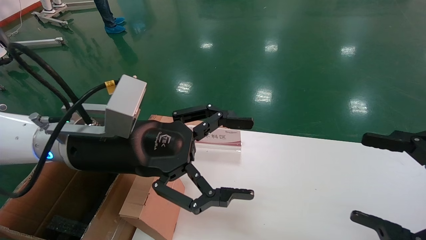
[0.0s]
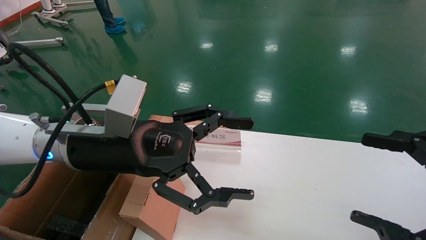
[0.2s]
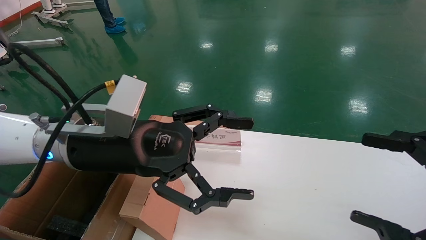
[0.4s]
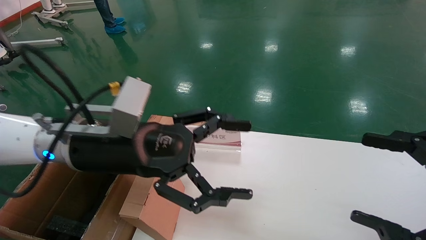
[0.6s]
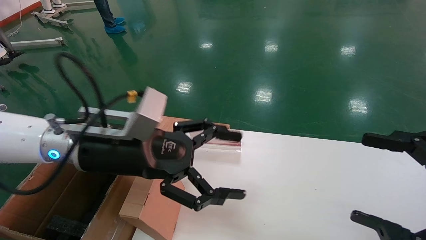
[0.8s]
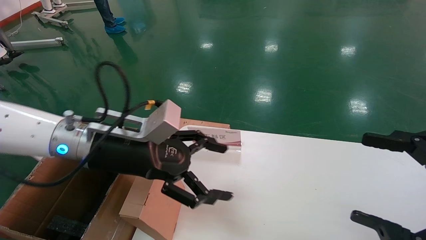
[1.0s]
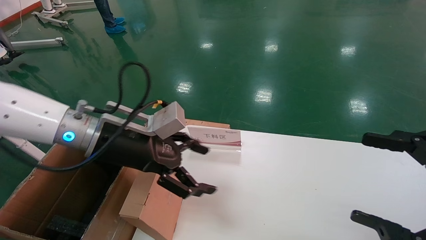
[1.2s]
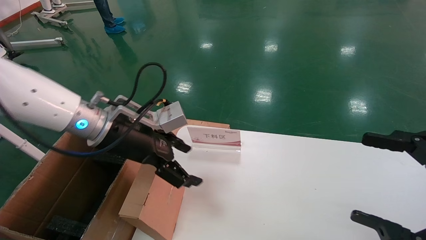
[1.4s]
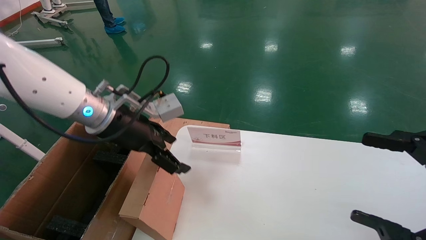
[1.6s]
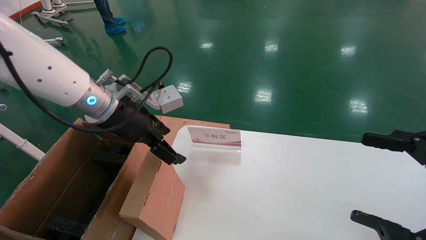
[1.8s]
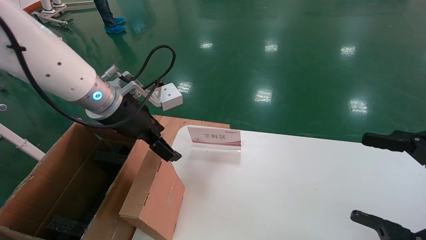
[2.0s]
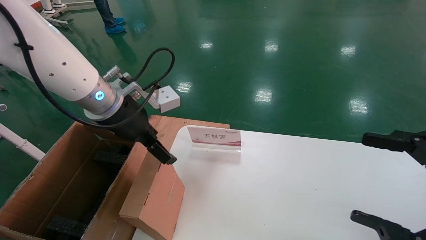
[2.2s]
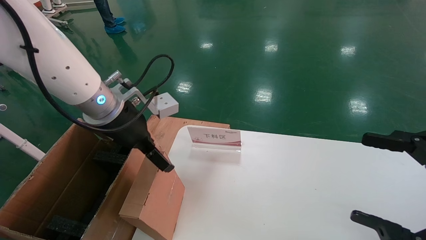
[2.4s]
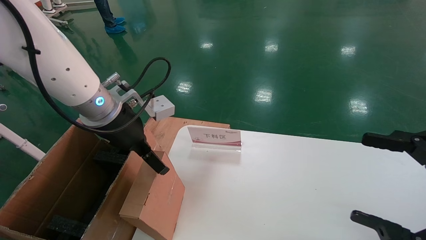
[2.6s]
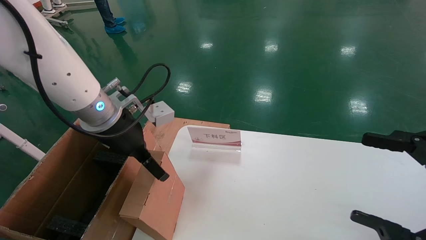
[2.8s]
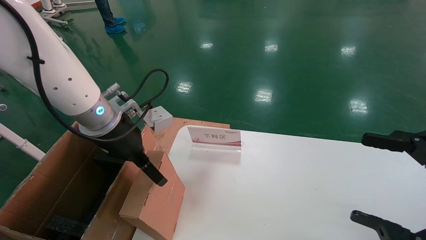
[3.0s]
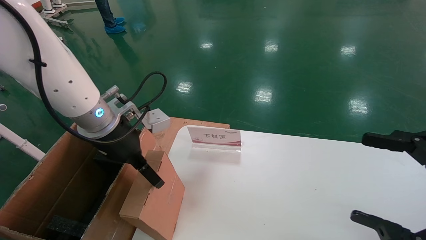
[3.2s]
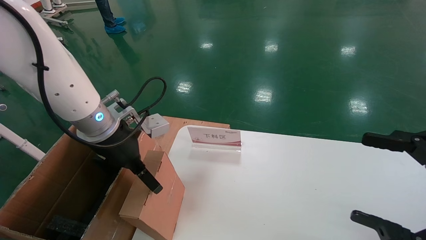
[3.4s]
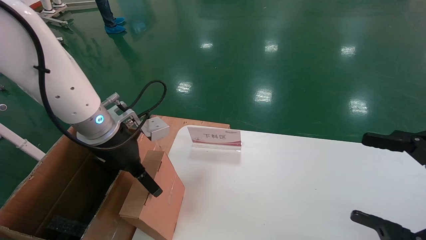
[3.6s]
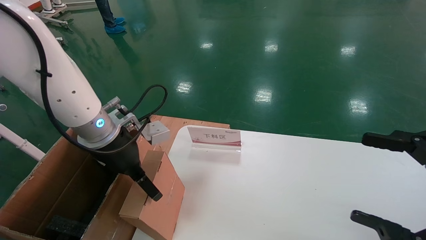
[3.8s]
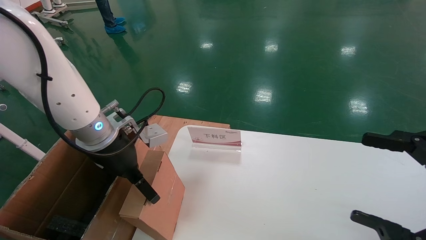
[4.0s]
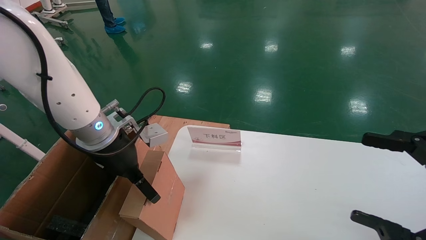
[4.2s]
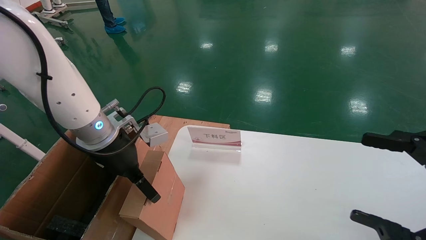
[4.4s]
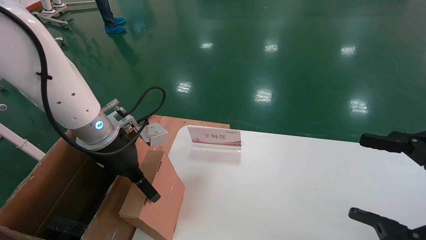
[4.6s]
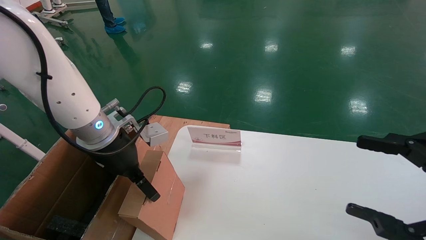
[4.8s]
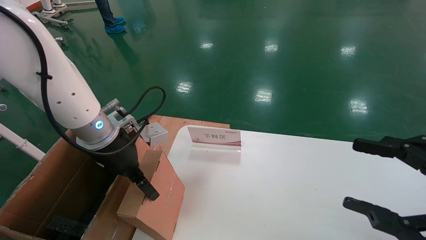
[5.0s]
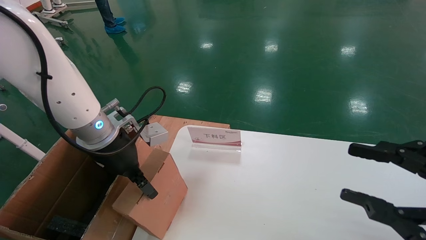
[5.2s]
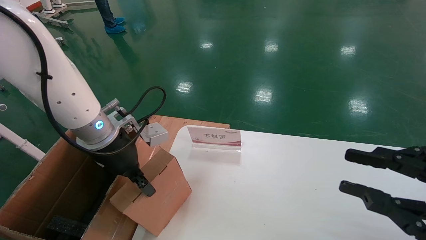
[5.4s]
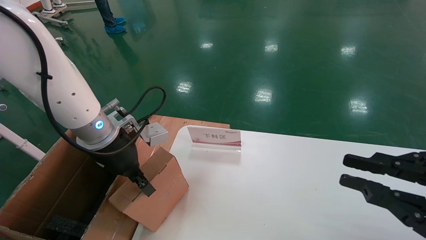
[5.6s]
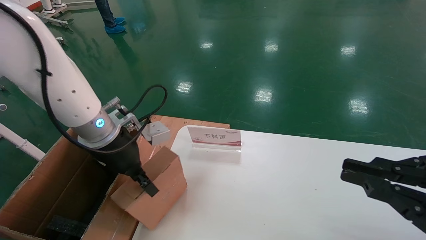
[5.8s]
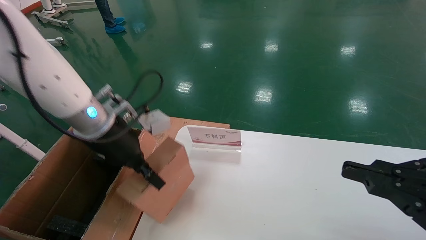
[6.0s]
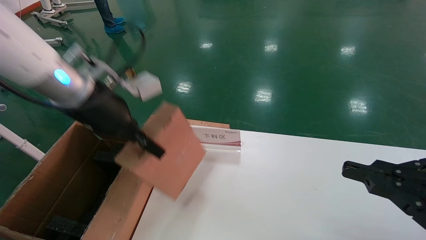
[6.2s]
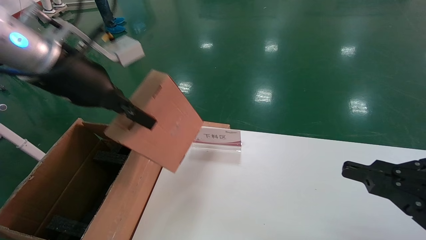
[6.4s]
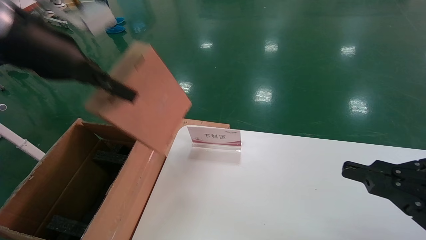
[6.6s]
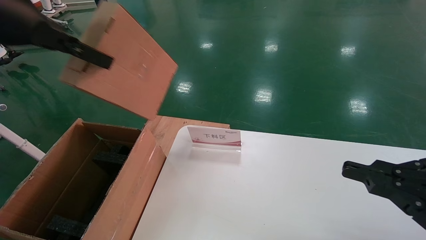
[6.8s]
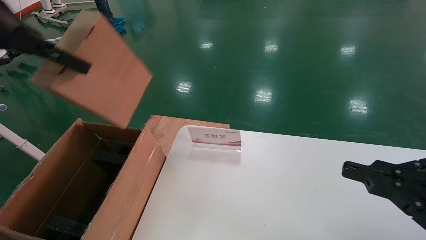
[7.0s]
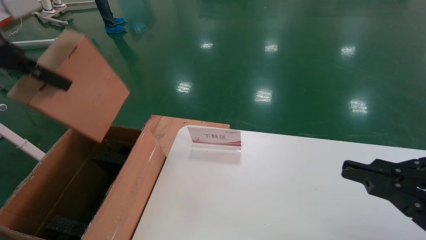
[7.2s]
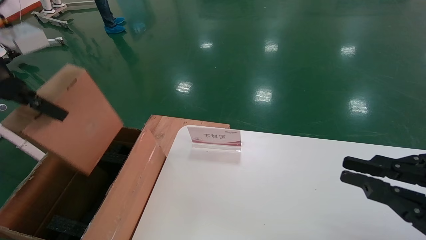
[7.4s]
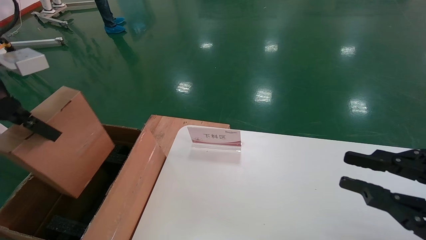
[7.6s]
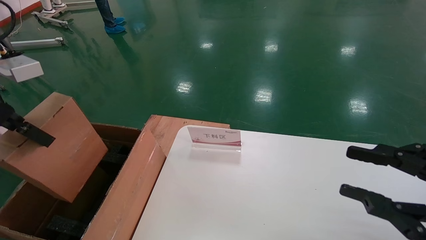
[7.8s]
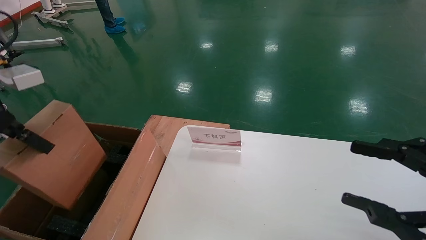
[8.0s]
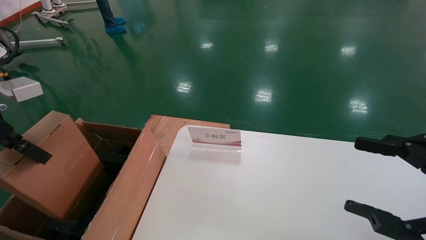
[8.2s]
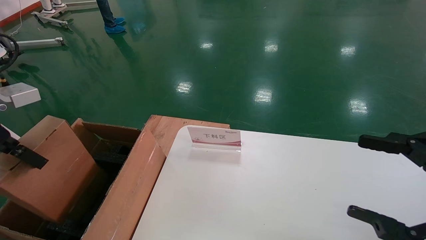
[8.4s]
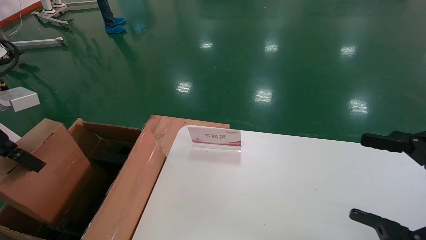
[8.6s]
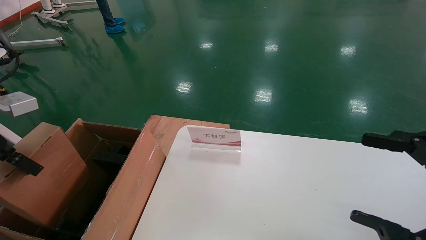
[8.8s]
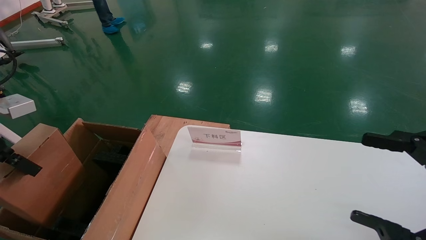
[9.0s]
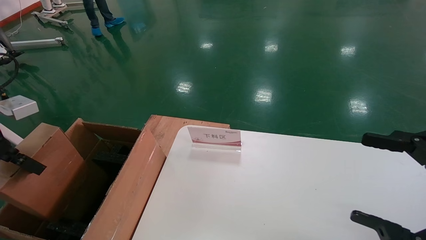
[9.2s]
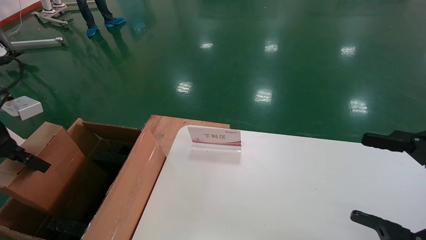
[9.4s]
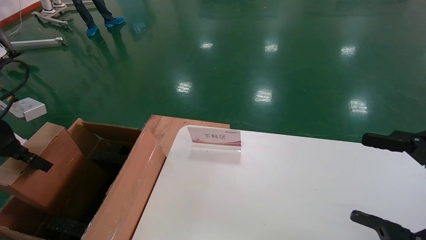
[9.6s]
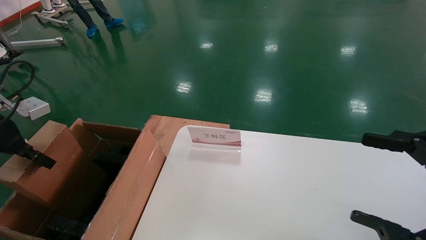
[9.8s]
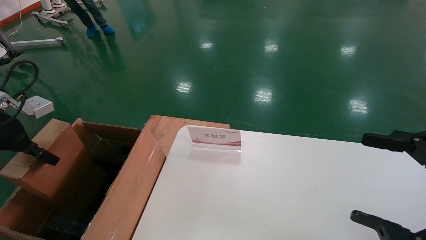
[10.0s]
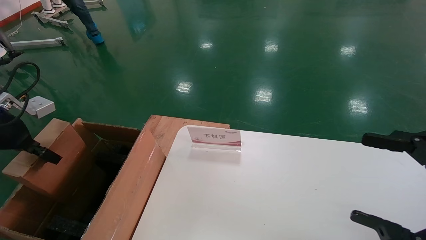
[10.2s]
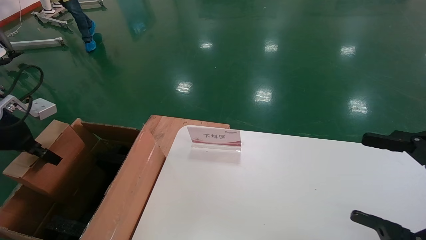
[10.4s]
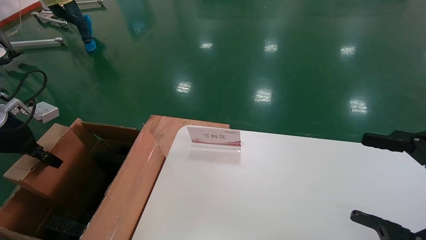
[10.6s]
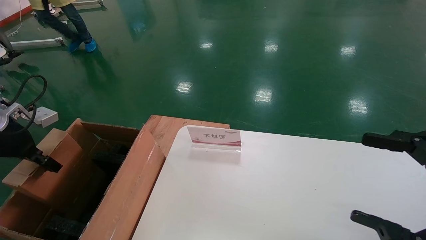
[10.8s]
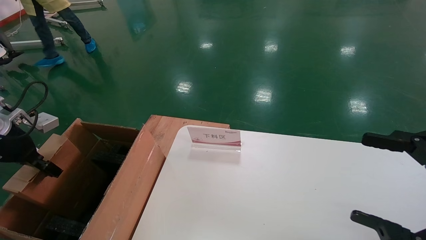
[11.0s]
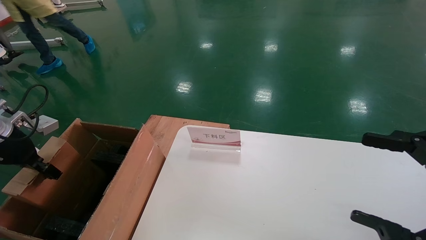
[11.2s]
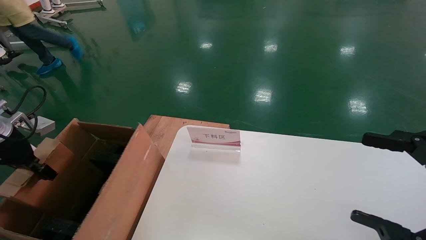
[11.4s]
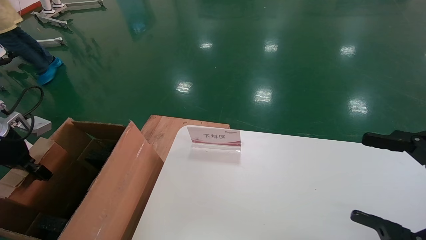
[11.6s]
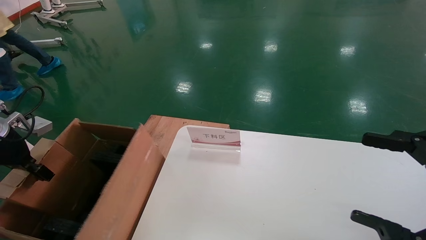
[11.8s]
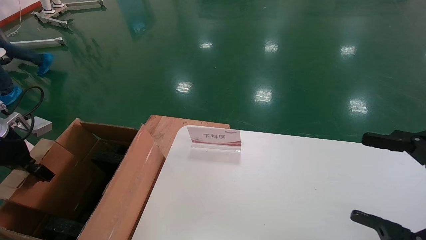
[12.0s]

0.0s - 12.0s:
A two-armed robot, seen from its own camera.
Task of the whole recording: pick up the small cardboard box and load it into the large cardboard box.
Step, 0.8s - 5.2s: Pick up the mouse and power cord box.
0.0s - 1.6s: The left gripper shifts about 10 cm forward.
3.0s - 4.4s: The grippers stay close to where they were, moving slightly.
4.4s - 6.0s: The left gripper closes; the right gripper closes its fingers.
6.0s - 7.6s: The left gripper moves to the left, backward and upward, approximately 20 cm.
7.6s - 9.0s: The right gripper opens up. The left gripper travels downward and to the left by some 10 cm.
9.0s - 10.4s: The left gripper is displaced forward by roughly 5 cm.
10.4s - 12.0s: The grippers stay close to where they were, moving slightly.

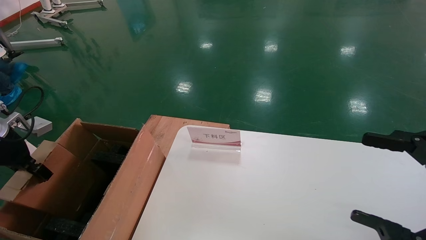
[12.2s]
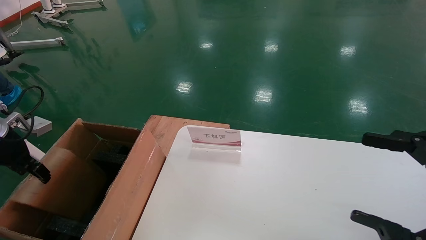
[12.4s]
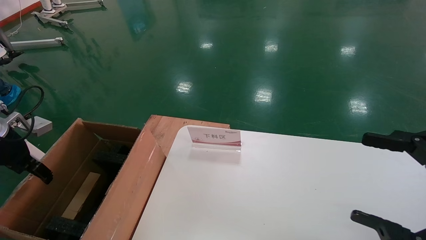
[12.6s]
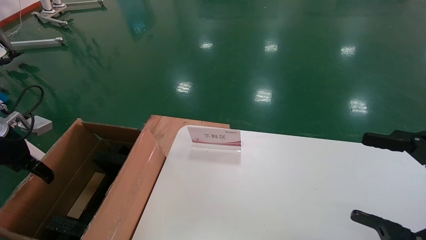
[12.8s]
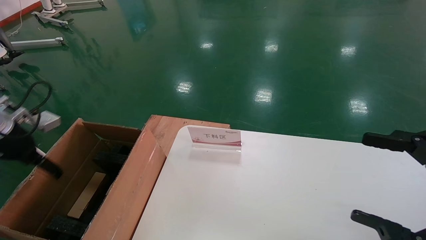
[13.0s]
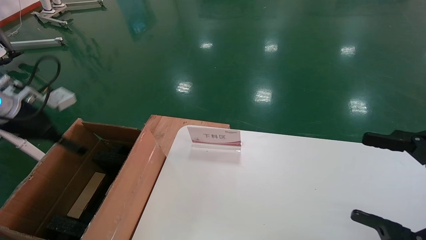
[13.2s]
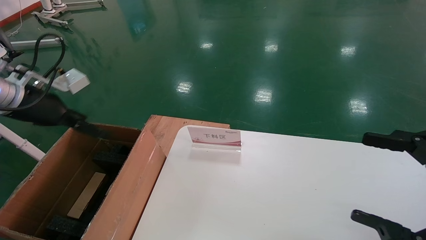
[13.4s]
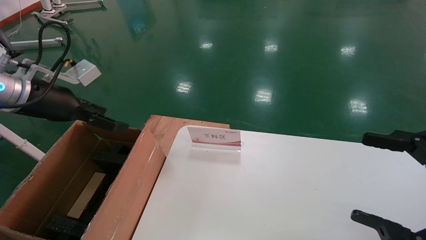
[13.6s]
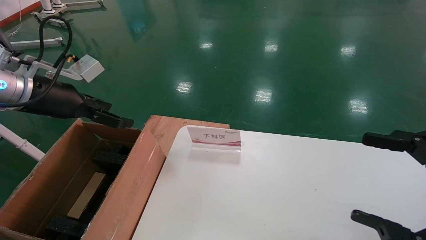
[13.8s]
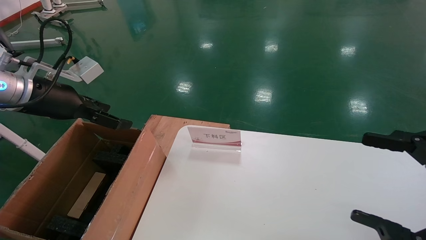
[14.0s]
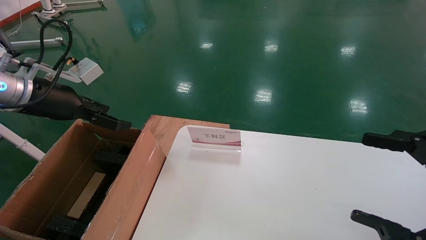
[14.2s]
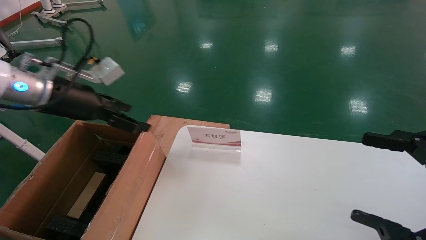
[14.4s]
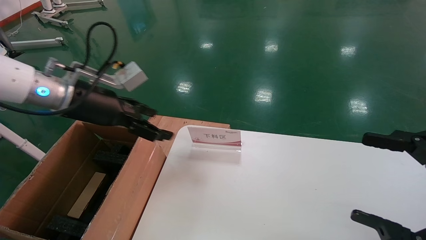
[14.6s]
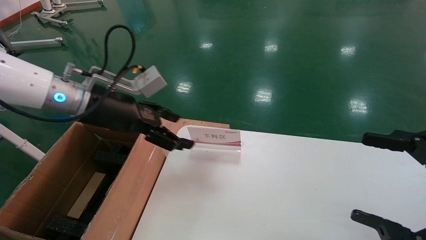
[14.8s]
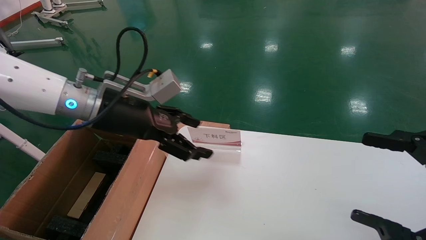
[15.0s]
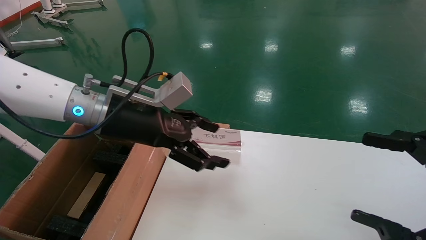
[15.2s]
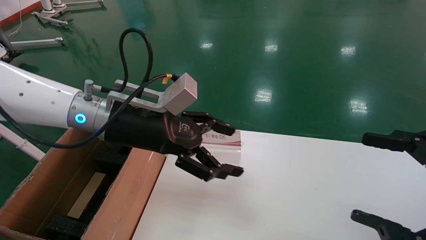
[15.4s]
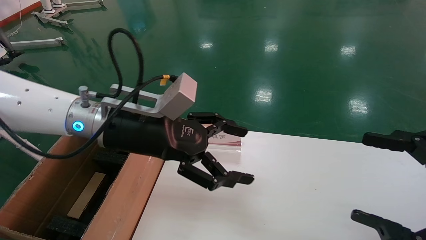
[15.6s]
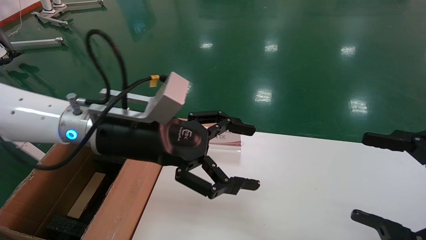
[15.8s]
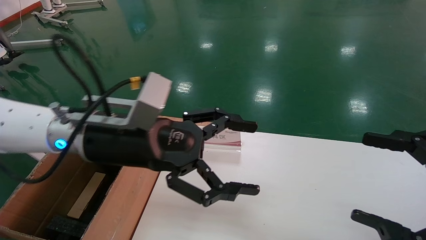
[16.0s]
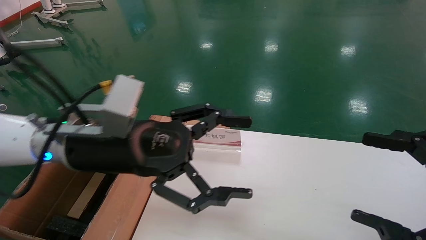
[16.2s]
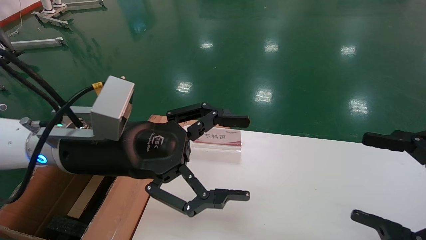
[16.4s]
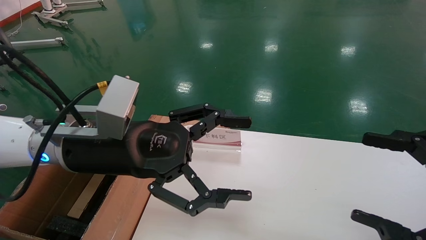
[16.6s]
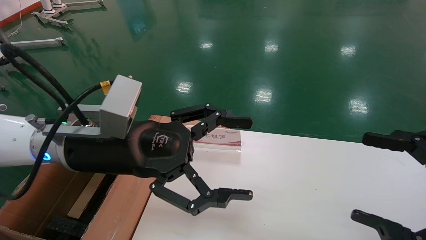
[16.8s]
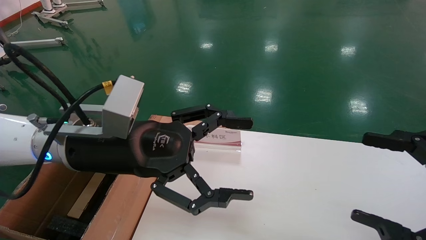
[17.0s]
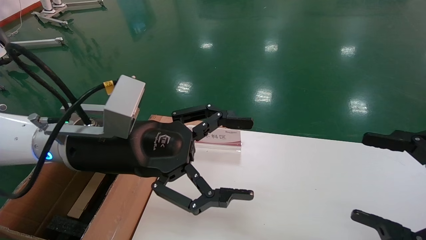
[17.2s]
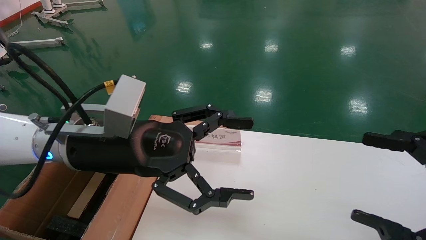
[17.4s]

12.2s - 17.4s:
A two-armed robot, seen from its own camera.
Task of the whole recording: pick up the small cardboard box and load it into the large cardboard box.
12.2s - 14.0s: The left gripper is displaced to the right and upward by approximately 15 cm, and opens.
14.0s - 15.6s: The left gripper shifts about 20 cm to the right.
